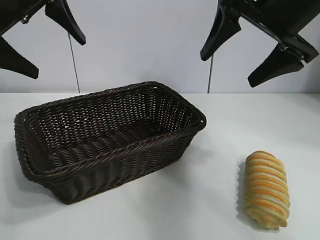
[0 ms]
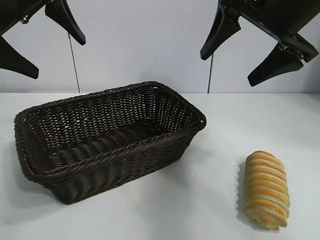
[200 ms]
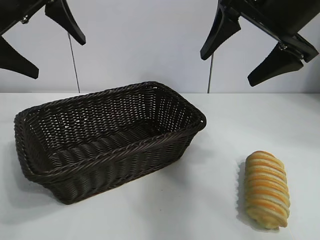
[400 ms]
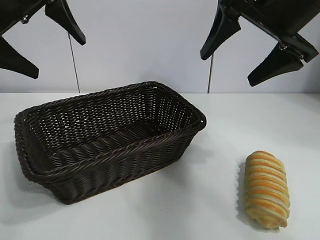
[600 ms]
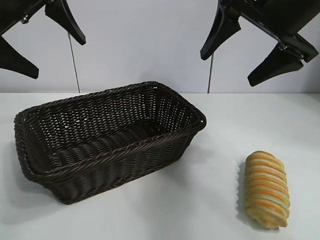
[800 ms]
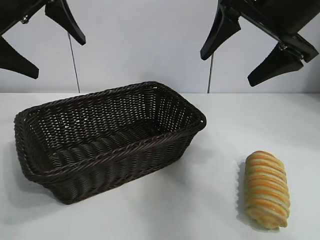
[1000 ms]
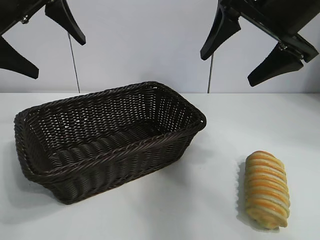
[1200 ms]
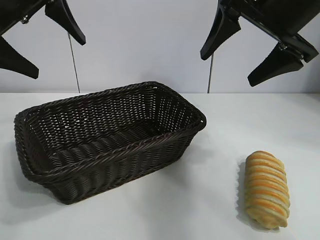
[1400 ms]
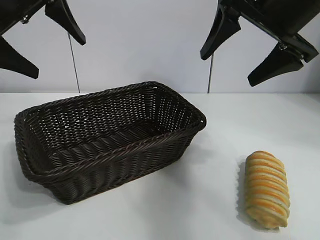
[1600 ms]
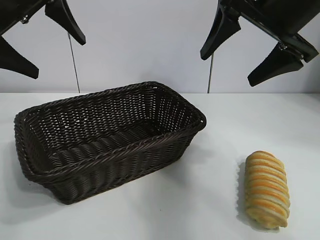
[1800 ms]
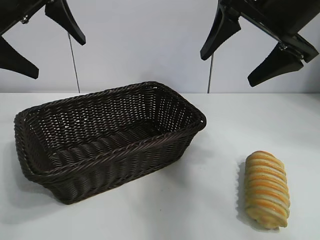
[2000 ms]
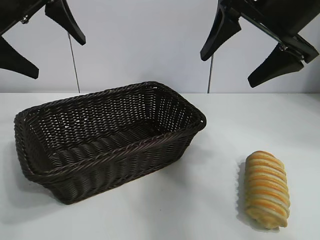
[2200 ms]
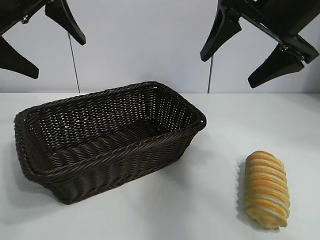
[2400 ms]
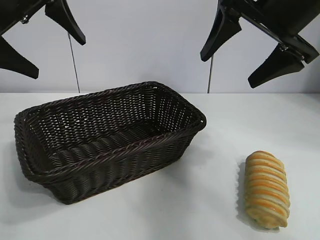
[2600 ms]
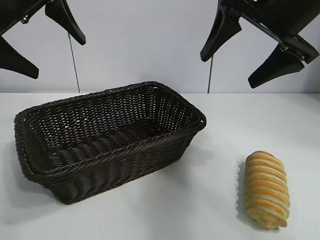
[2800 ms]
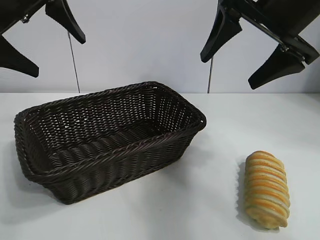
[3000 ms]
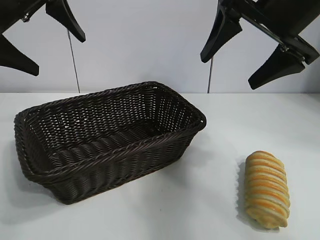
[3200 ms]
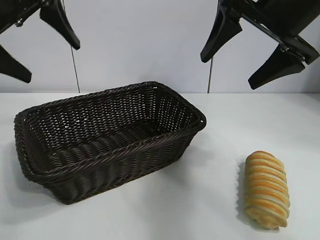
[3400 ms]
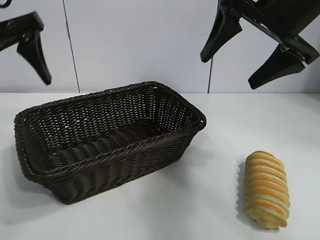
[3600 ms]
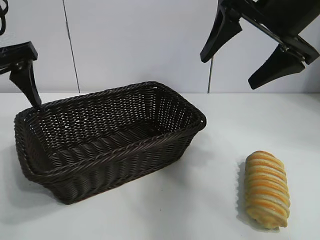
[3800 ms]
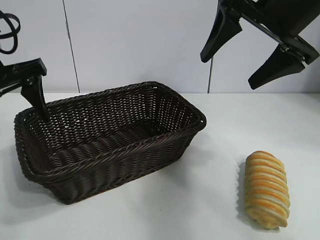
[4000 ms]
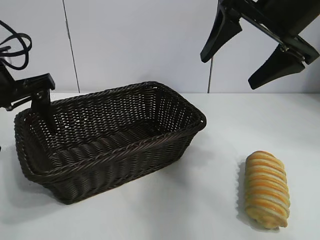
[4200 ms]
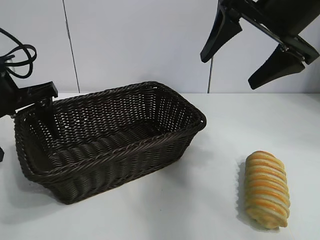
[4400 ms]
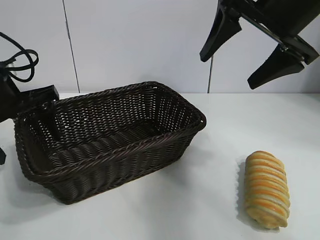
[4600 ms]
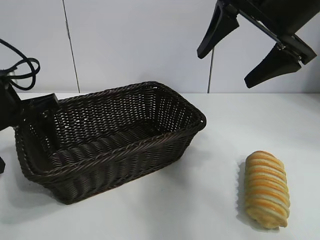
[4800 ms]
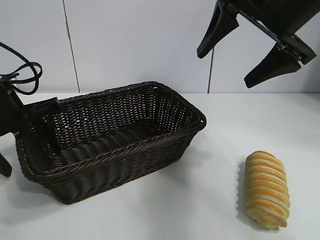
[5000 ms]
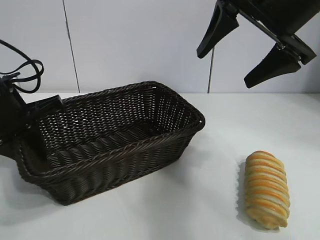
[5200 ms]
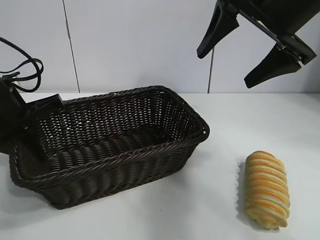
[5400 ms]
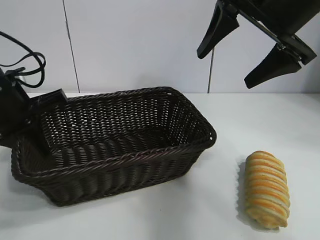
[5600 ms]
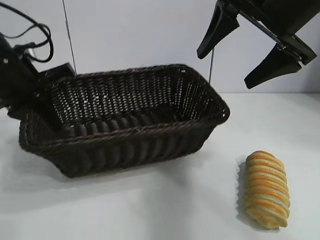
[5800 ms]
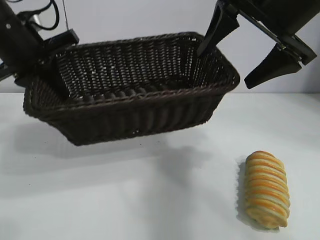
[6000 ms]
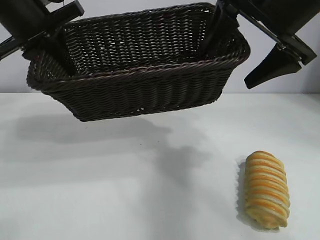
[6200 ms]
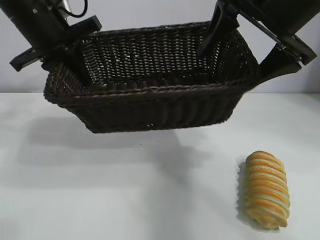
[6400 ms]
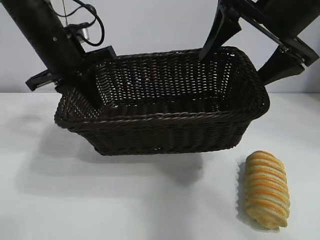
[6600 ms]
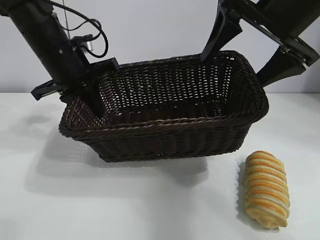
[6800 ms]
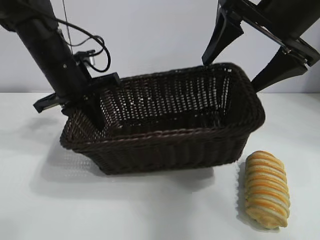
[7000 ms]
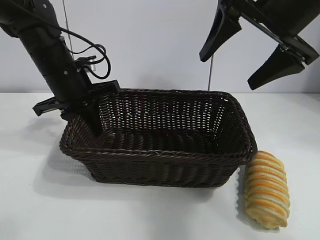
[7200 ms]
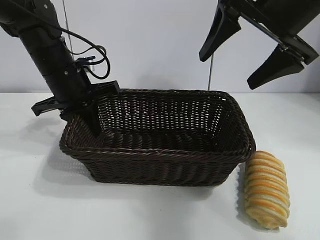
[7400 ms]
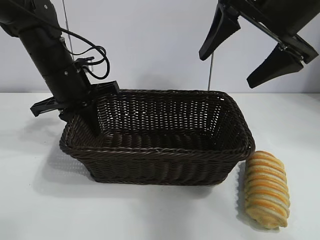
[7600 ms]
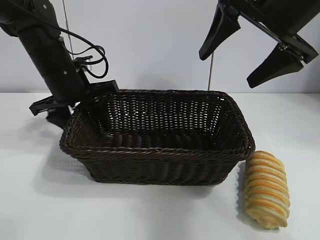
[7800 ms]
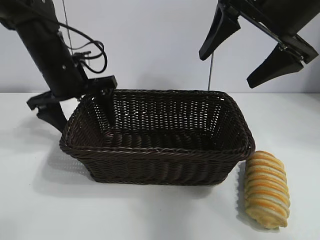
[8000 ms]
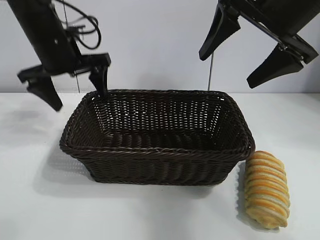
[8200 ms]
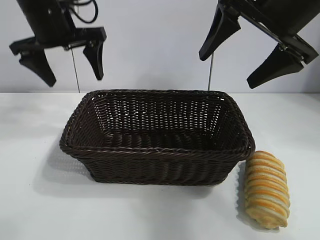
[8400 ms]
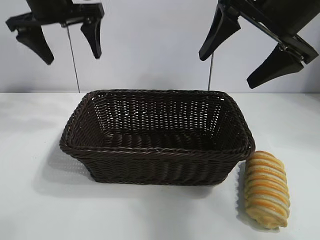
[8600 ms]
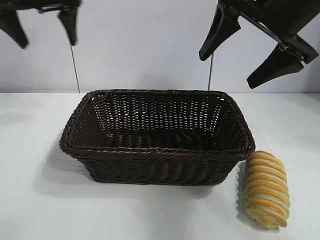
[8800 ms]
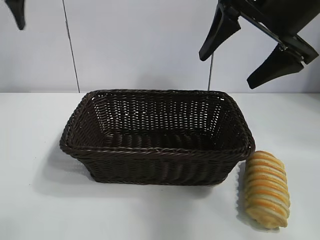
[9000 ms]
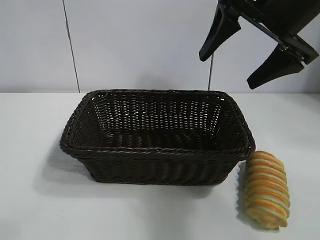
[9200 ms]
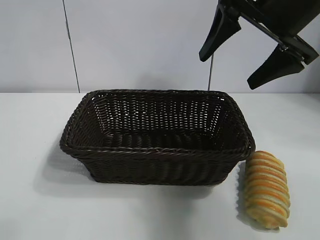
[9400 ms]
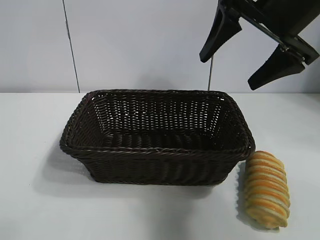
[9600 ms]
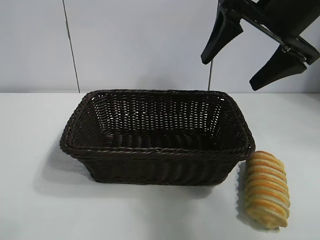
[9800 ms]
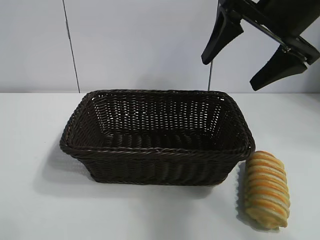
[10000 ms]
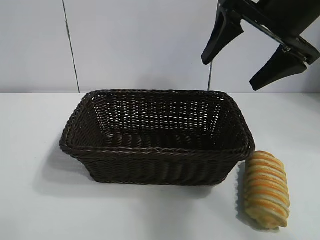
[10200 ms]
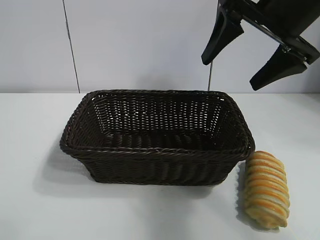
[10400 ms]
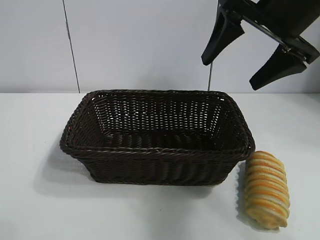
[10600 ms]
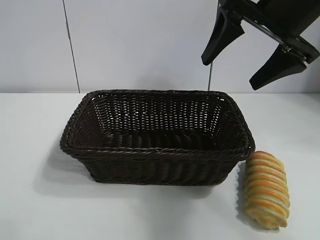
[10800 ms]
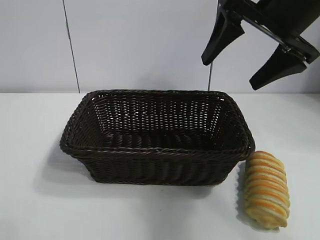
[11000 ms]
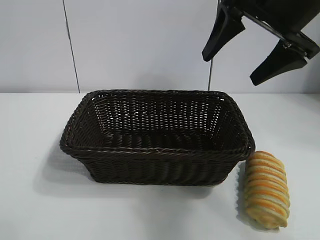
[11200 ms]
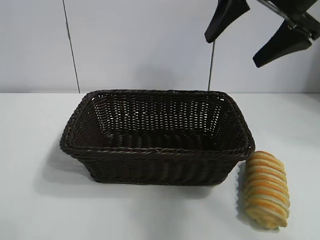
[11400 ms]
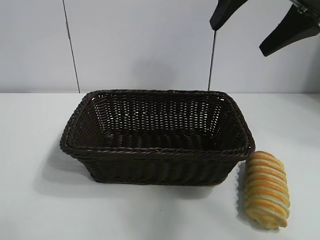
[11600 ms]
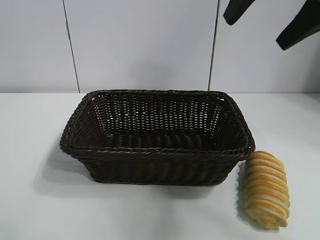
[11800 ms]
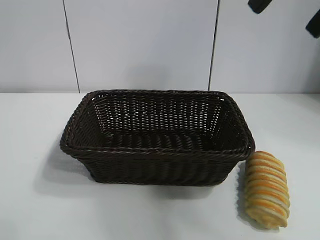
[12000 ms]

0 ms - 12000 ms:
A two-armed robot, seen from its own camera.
Task of the whole recording: pick up the long bread and put it into the basket.
Step, 3400 ms - 5000 ms: Grasp the basket with the left gripper.
Step, 5400 ms - 7200 ms: Place the basket in the center of the table with the left gripper.

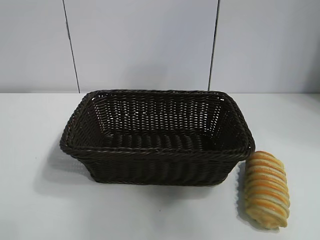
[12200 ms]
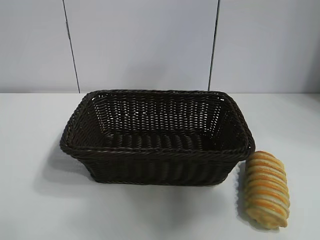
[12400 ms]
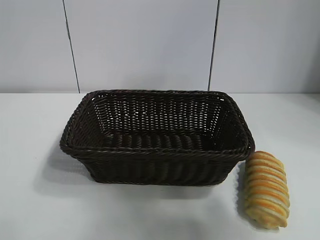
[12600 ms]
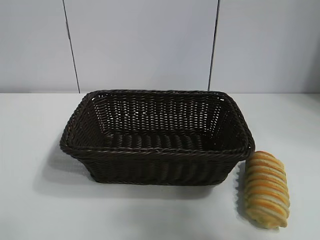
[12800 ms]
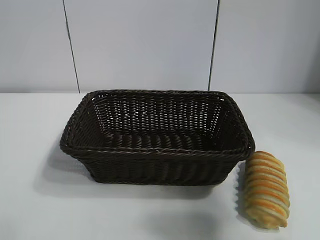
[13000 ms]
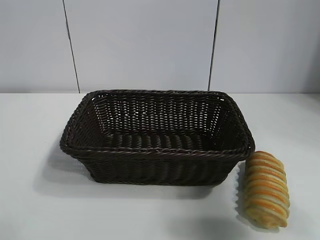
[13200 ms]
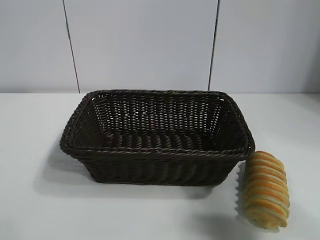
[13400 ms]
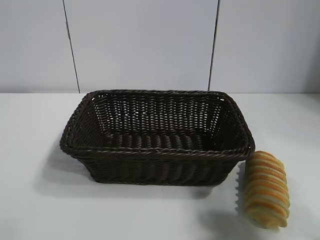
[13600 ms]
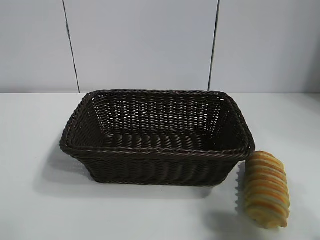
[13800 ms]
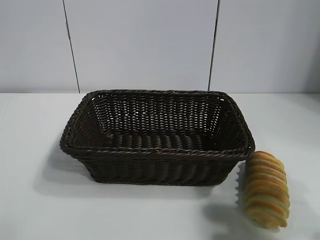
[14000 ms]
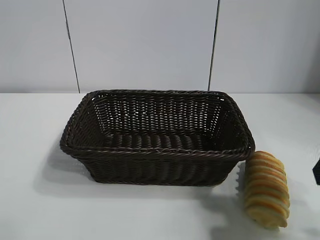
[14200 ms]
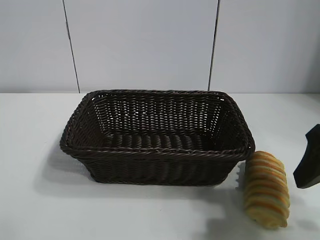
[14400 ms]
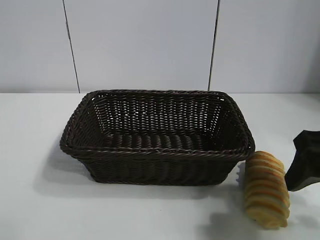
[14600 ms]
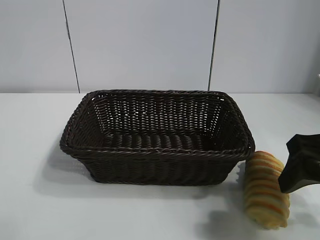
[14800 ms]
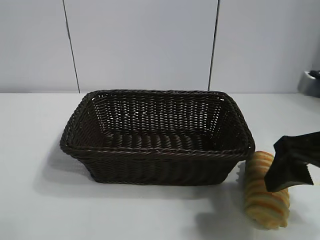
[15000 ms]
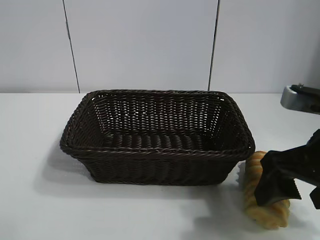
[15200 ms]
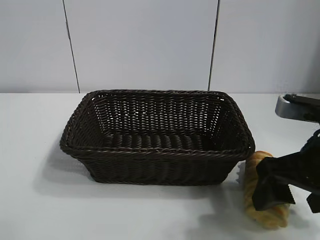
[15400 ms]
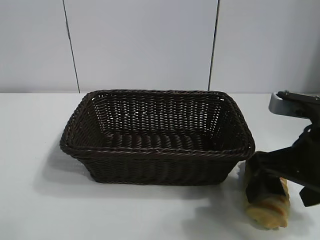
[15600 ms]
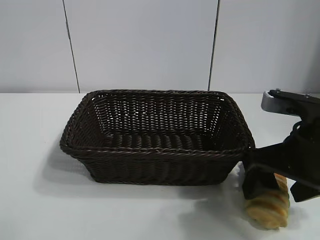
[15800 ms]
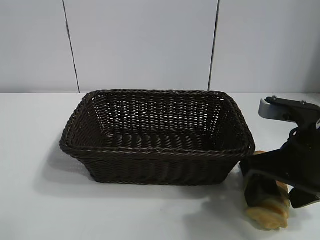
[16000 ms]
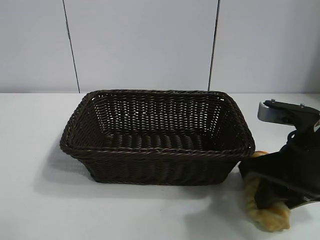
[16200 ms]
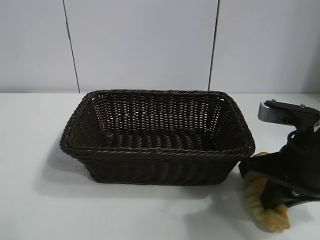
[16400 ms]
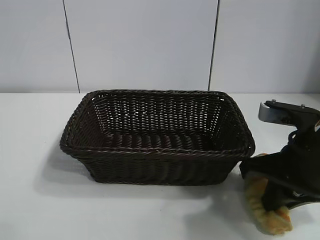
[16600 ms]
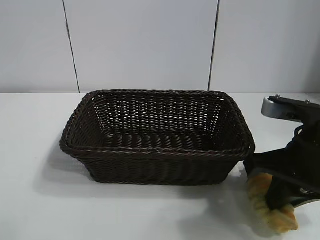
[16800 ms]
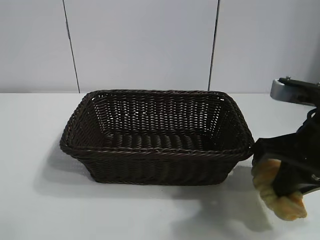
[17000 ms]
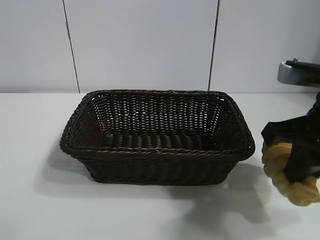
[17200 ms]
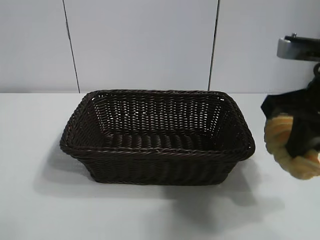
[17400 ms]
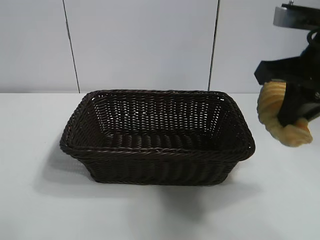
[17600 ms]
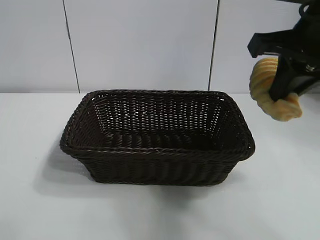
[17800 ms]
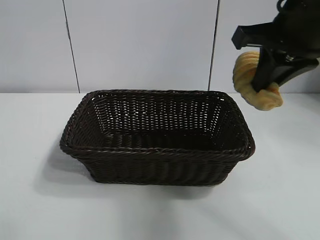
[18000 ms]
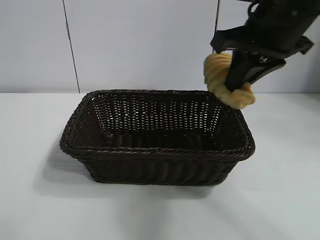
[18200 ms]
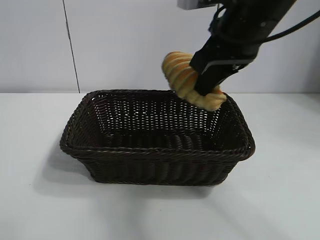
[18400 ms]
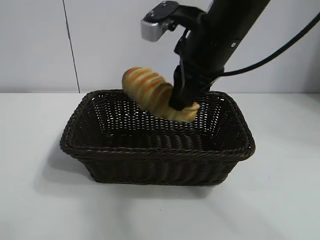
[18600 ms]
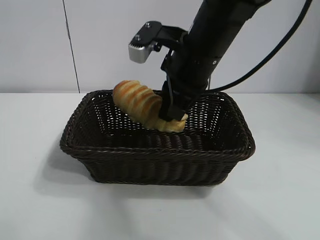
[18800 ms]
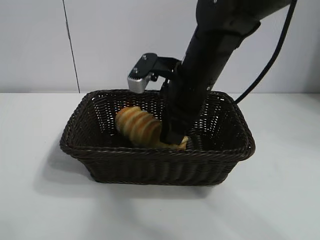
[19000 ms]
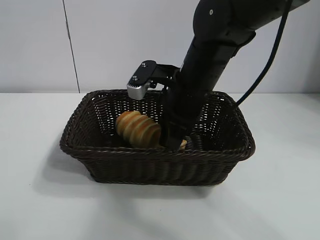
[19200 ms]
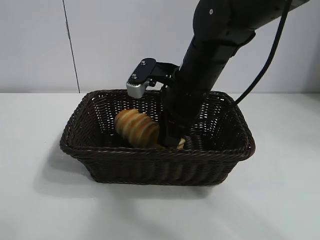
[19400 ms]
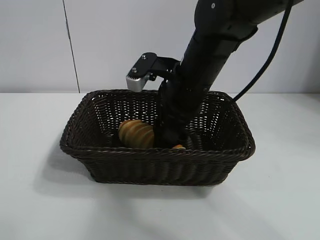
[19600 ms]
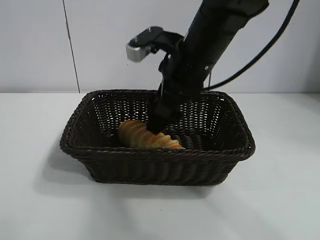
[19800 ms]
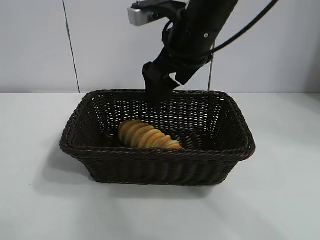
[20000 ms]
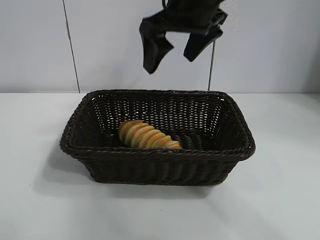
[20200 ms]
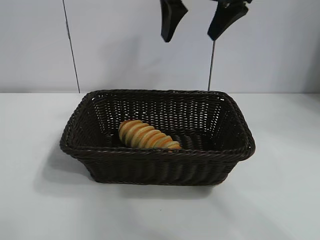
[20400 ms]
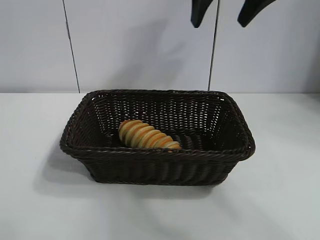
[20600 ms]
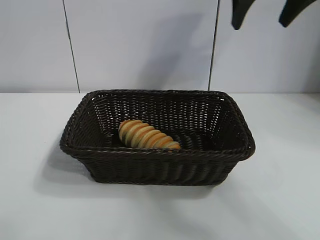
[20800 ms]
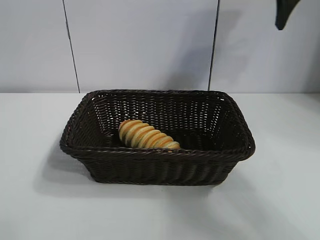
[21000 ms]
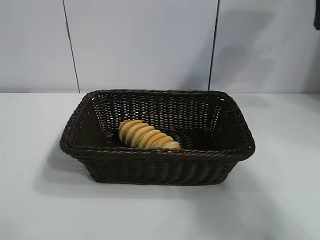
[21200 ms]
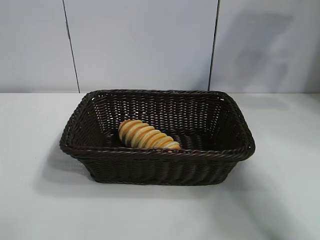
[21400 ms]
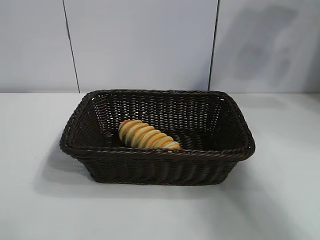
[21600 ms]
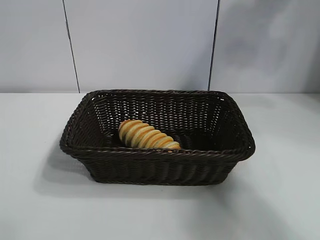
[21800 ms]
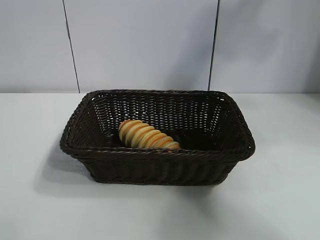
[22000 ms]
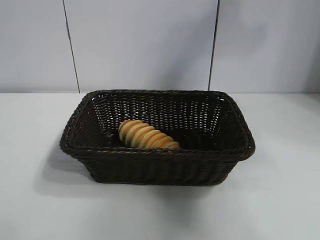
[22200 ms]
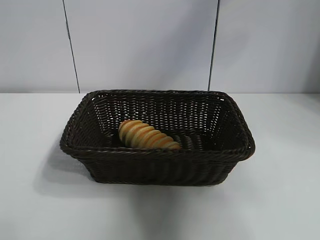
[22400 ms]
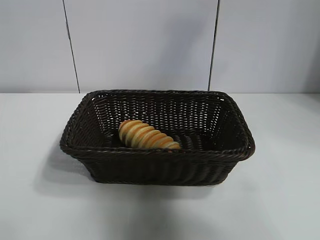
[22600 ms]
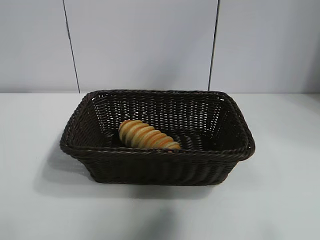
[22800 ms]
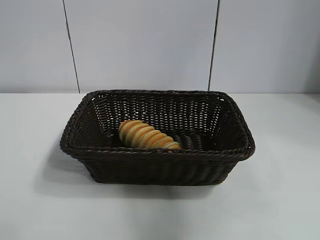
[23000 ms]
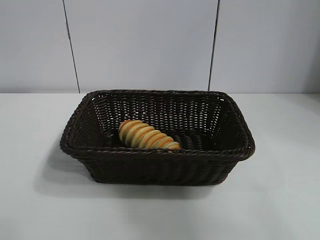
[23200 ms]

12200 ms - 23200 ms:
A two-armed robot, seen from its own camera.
Task of the whole recording: pick up the long bread and put it into the basket.
Step, 12200 ms - 16000 ms: Grasp the long bread with right gripper.
Step, 16200 ms - 19400 ms: Place the long bread in the basket with right gripper.
